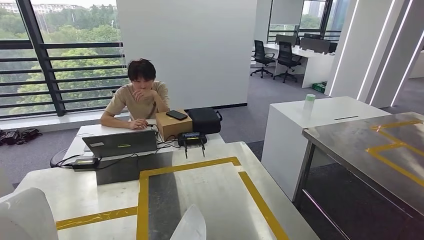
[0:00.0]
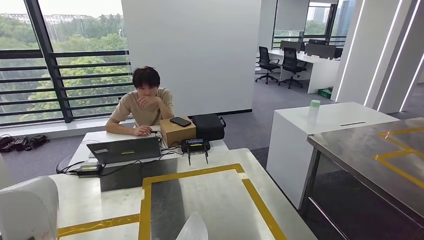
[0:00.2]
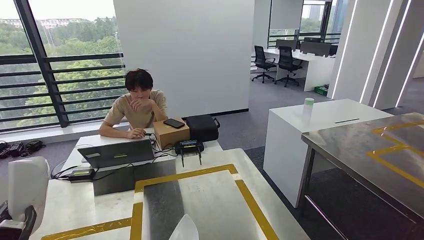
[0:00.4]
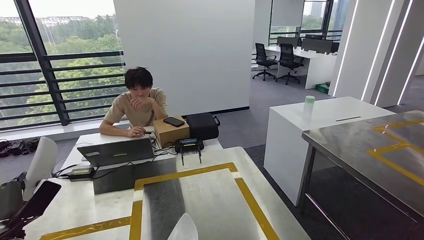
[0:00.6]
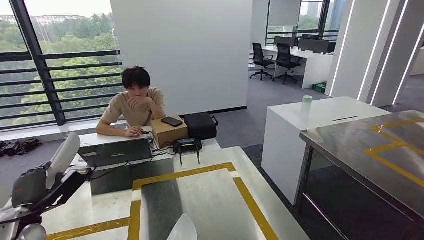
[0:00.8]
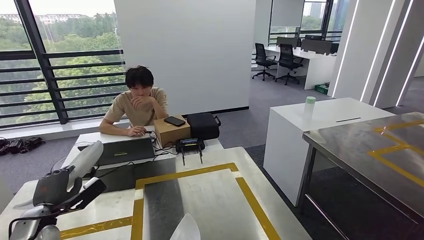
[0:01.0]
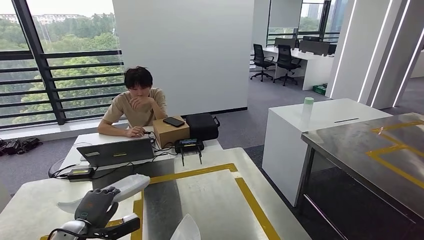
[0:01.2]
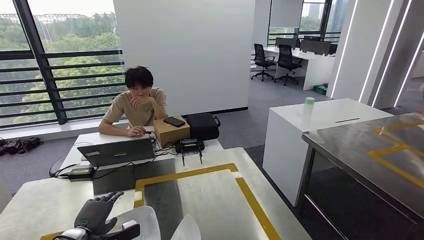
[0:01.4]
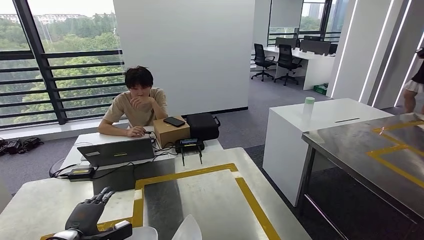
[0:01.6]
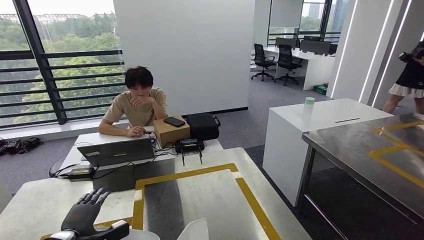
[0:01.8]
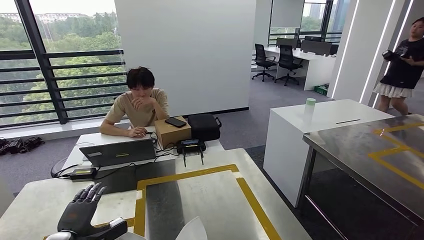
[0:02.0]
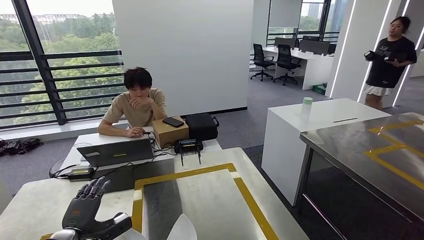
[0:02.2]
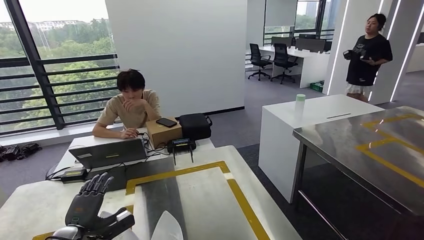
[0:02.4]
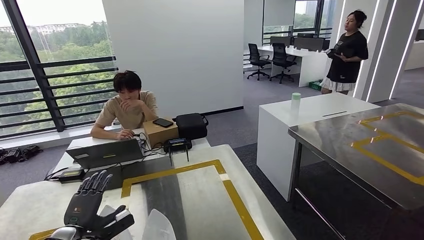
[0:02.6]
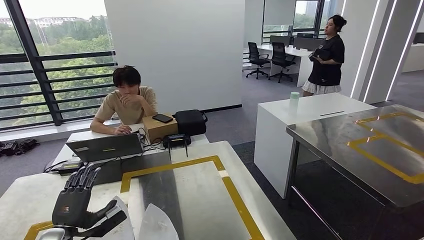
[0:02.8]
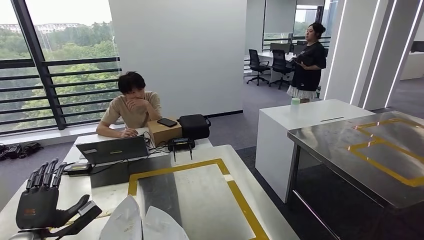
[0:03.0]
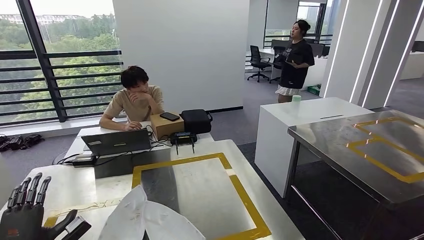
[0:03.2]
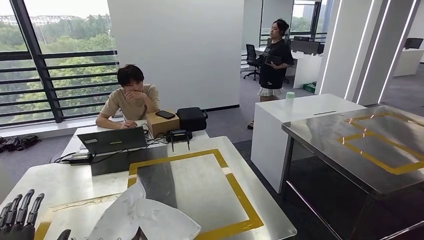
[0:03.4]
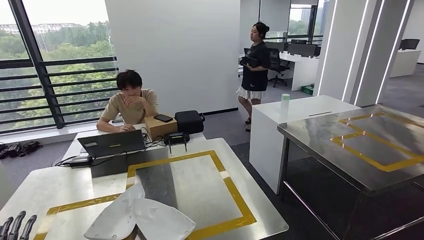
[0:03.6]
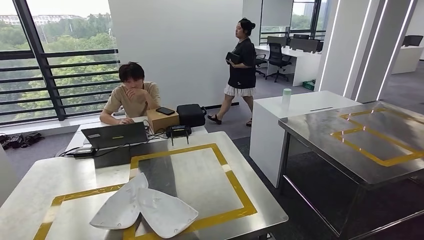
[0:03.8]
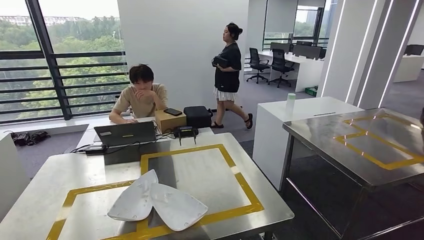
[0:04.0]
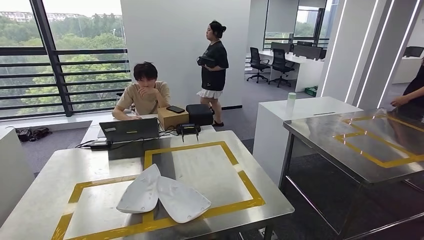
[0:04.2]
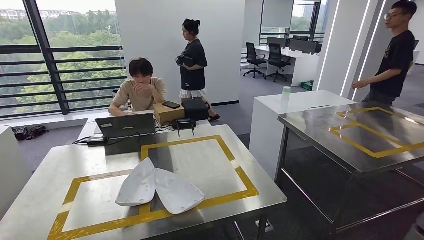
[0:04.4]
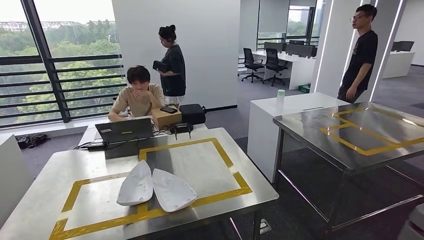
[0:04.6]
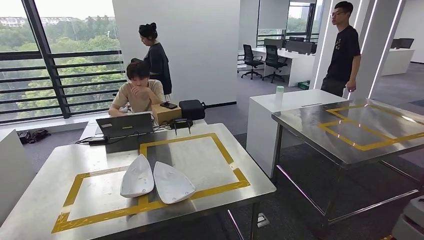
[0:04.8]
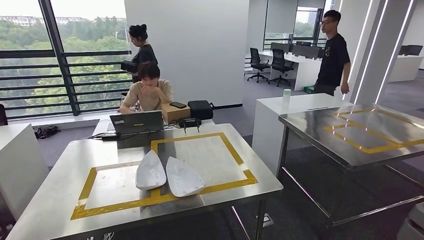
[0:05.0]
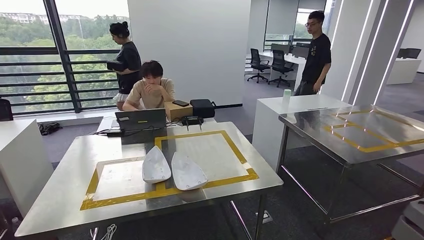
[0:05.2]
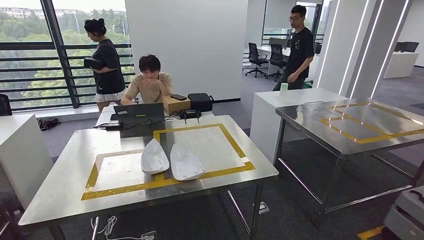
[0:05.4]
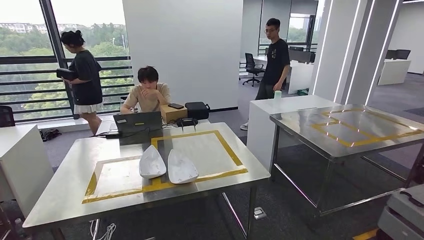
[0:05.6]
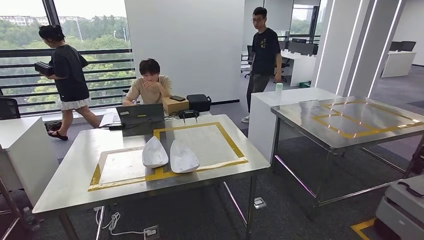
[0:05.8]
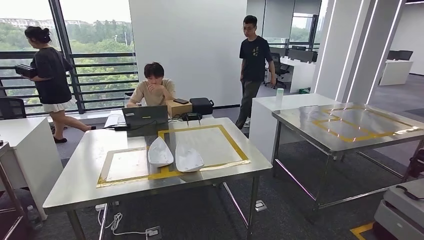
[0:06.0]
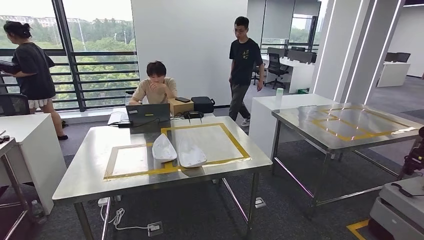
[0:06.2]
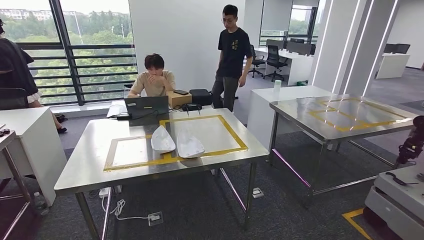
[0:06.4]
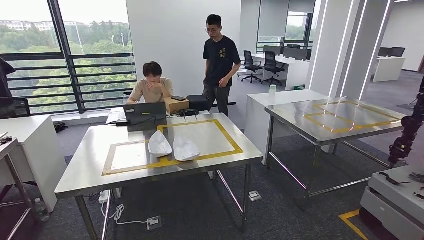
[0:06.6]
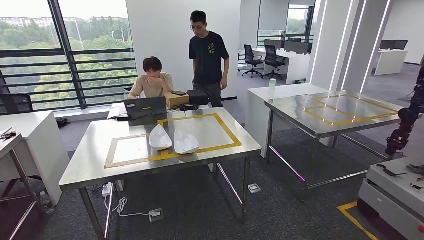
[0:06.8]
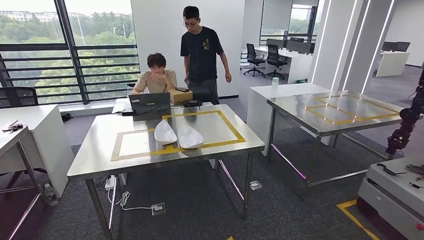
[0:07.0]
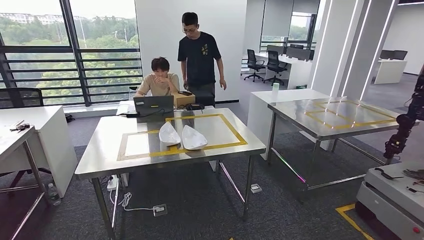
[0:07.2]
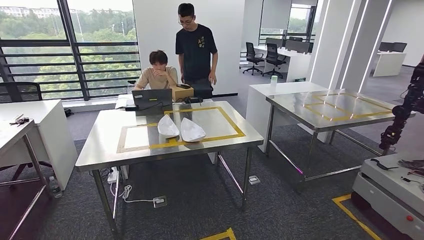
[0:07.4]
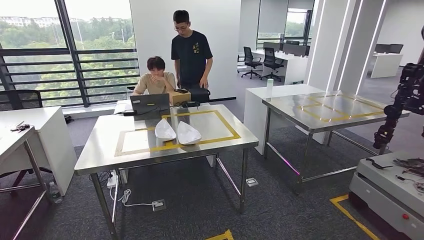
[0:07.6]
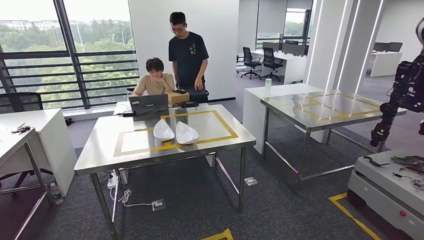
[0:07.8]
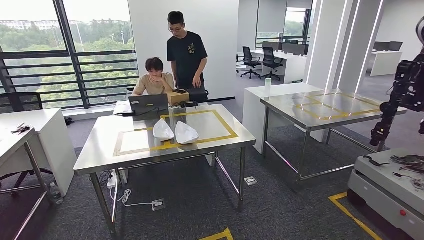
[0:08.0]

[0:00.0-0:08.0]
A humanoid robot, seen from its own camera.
Step, 0:01.6 to 0:04.0: Insert the small component into the corresponding slot on the workbench.
Step, 0:05.4 to 0:08.0: Return to the initial position at the workbench.
